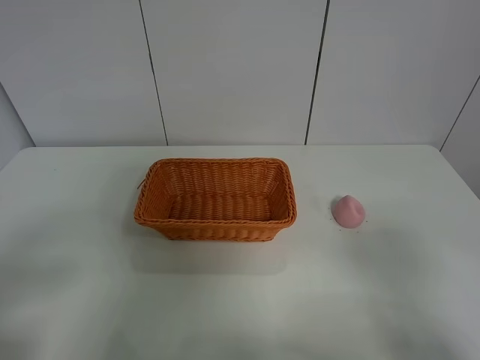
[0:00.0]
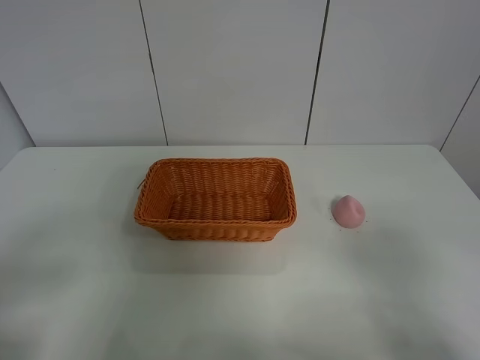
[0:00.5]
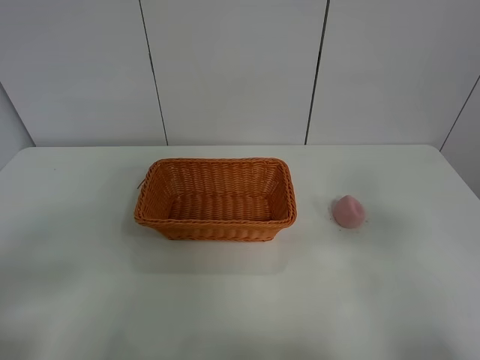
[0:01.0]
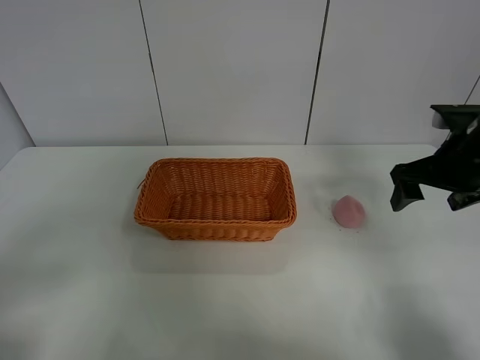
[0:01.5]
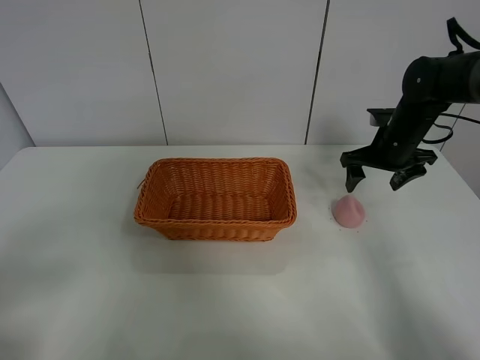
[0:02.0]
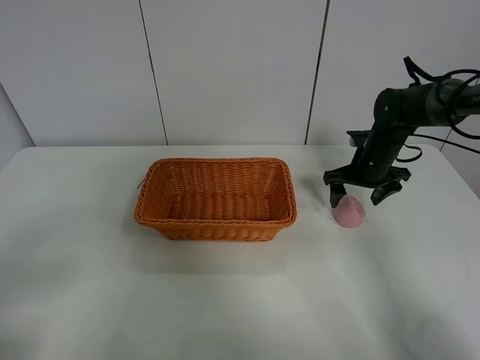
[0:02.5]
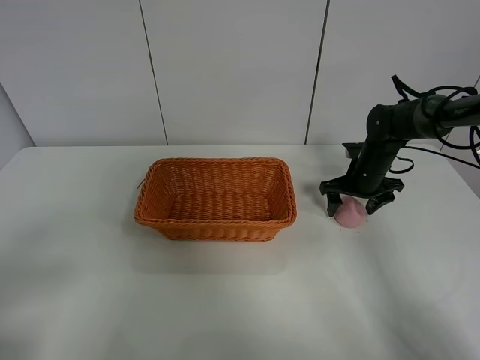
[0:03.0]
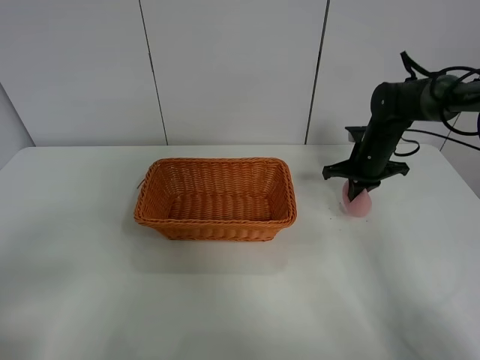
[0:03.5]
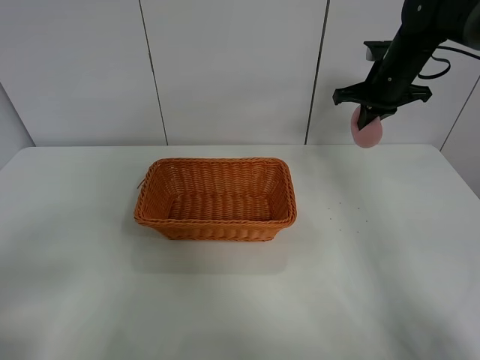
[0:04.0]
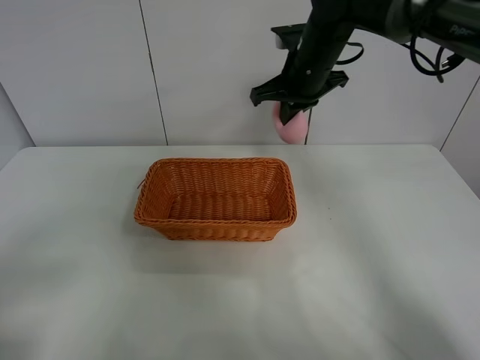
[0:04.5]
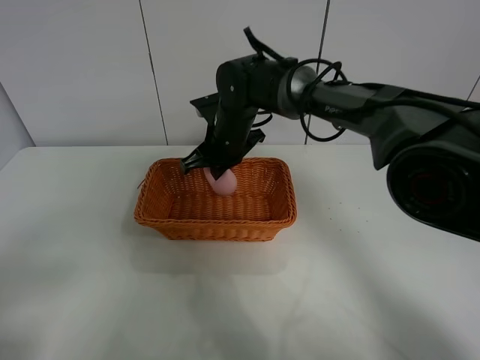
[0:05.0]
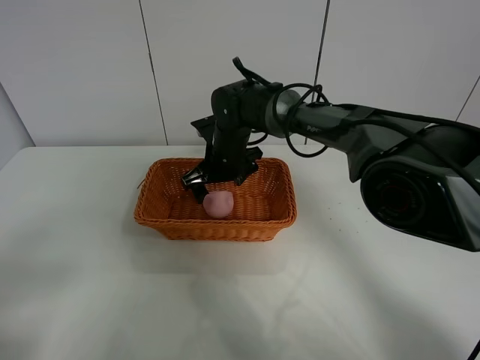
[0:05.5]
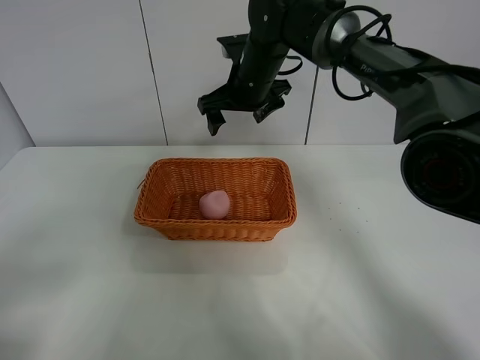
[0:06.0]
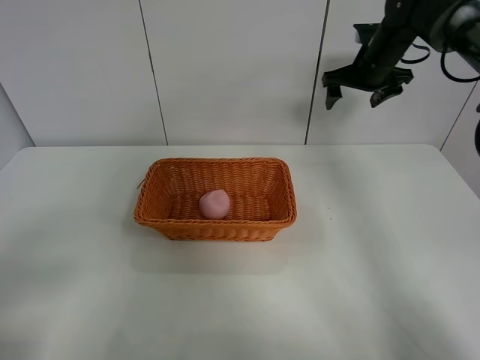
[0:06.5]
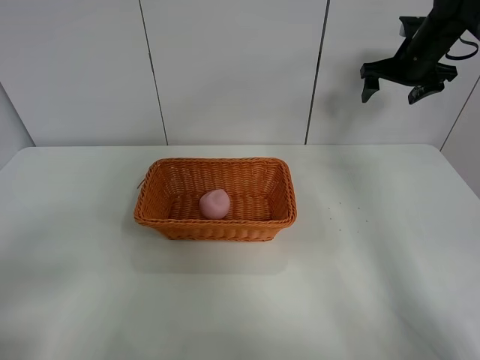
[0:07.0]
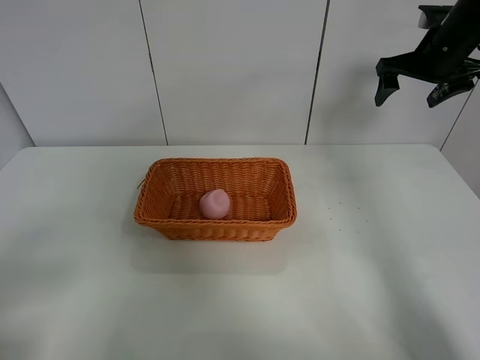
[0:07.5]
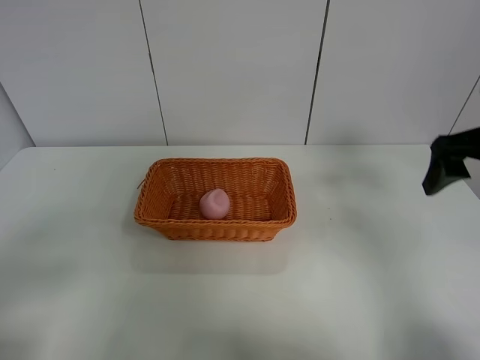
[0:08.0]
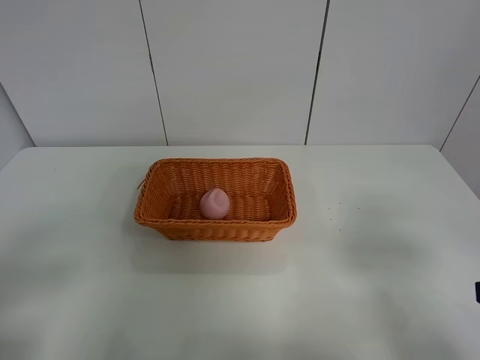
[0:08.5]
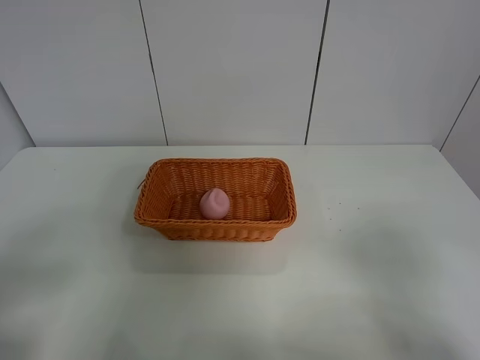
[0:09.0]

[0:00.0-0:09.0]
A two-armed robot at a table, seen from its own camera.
Step, 0:00.0 to 0:03.0: Grasp the peach with right gripper.
Step, 0:03.5 to 0:06.0: Place the peach in the basket with right gripper.
0:00.0 to 0:02.0: The right gripper is displaced forward by roughly 40 cm.
0:02.0 to 0:04.5: The right gripper travels to the left and upward by roughly 20 cm, and closes its fingers.
0:04.5 to 0:07.0: The right gripper shifts approximately 25 cm to the right and forward, and opens.
0:07.0 to 0:09.0: The right gripper travels backward by roughly 50 cm.
